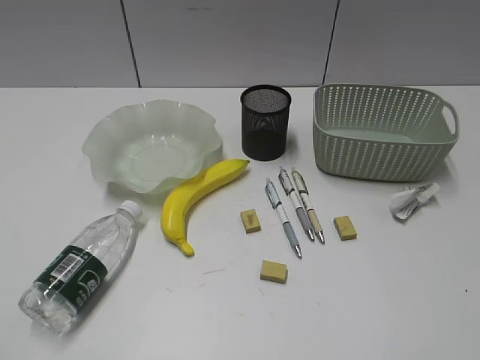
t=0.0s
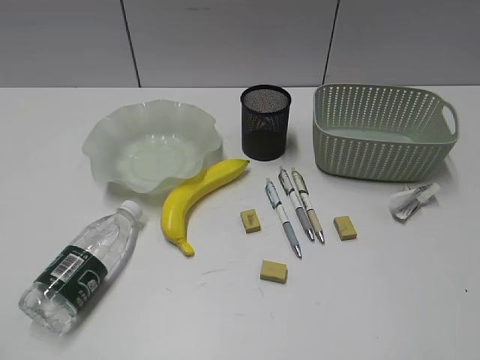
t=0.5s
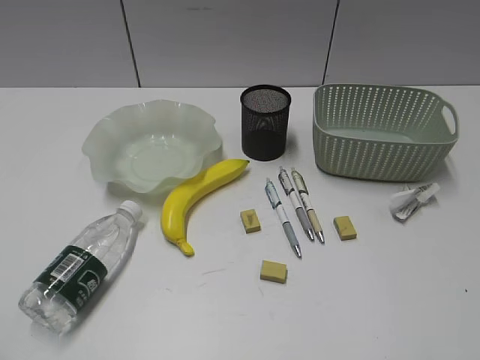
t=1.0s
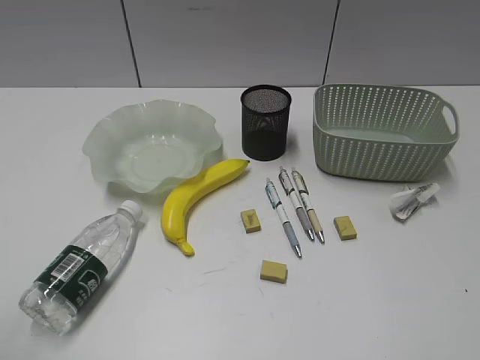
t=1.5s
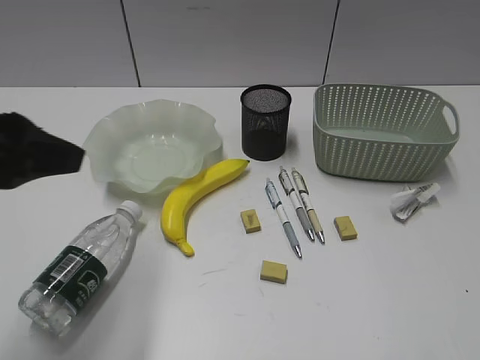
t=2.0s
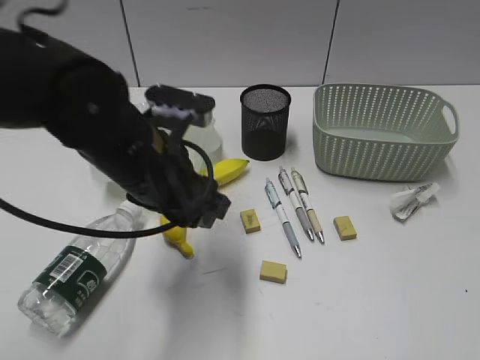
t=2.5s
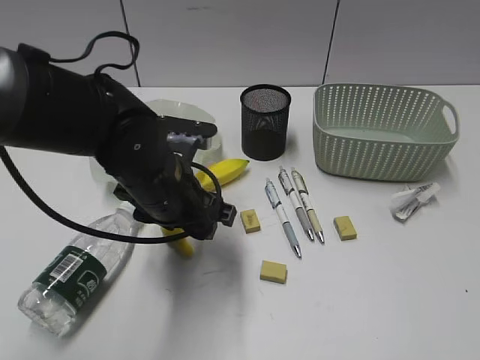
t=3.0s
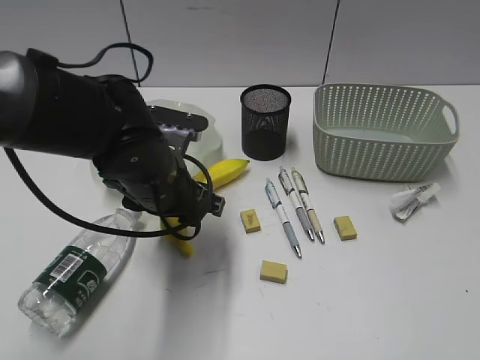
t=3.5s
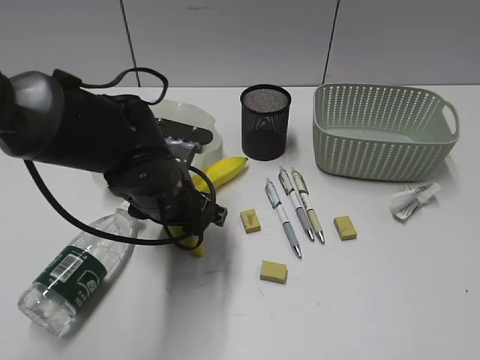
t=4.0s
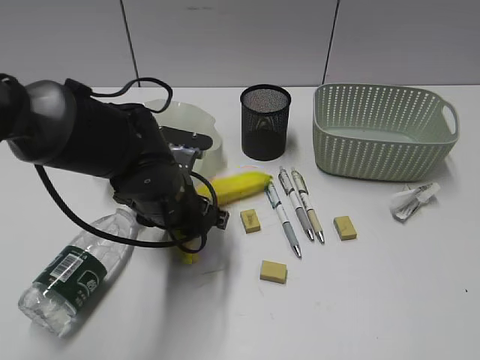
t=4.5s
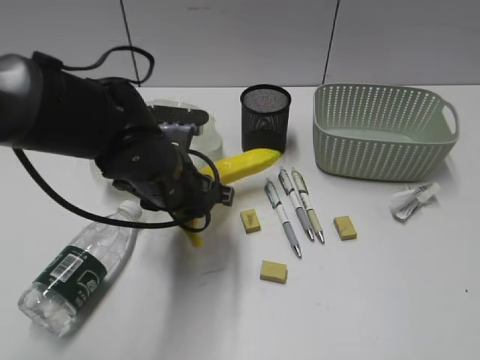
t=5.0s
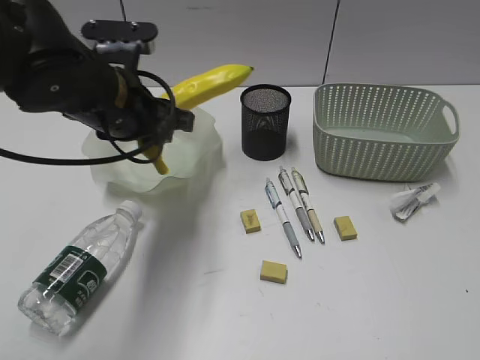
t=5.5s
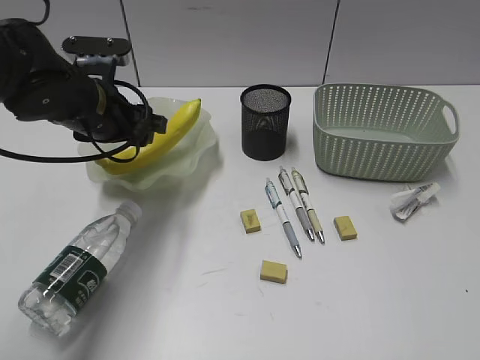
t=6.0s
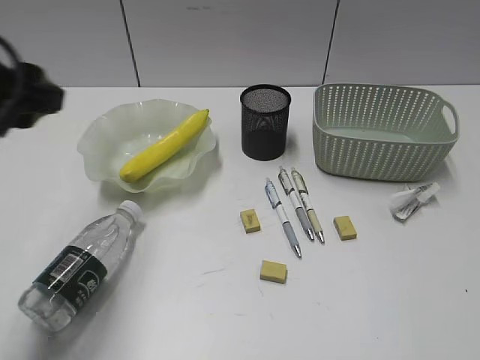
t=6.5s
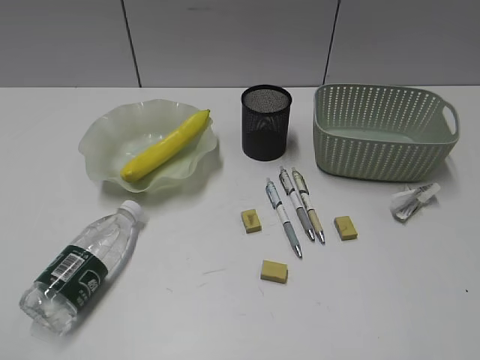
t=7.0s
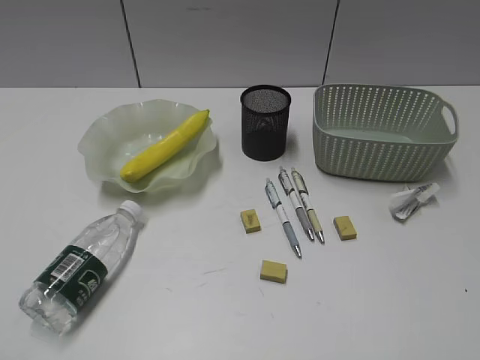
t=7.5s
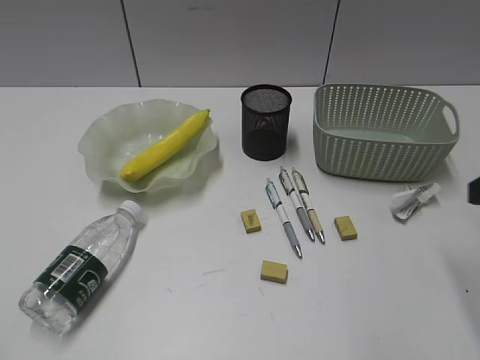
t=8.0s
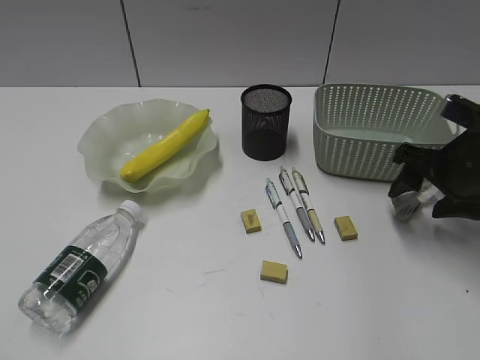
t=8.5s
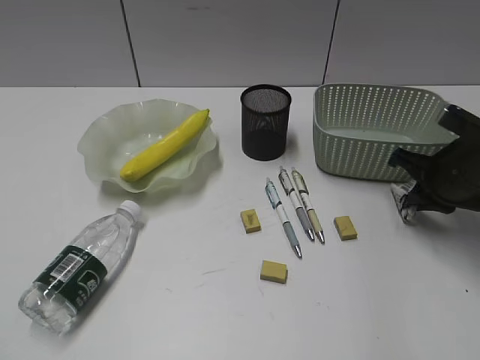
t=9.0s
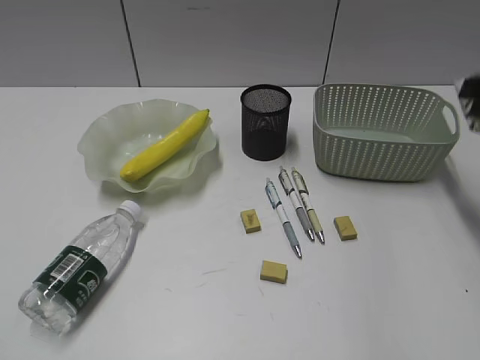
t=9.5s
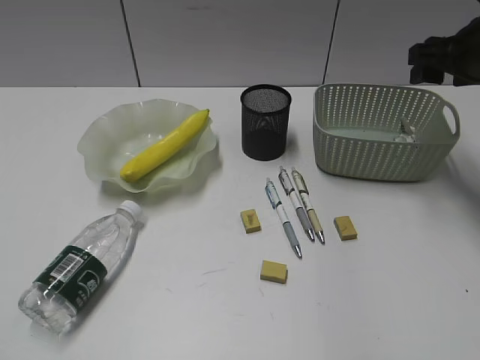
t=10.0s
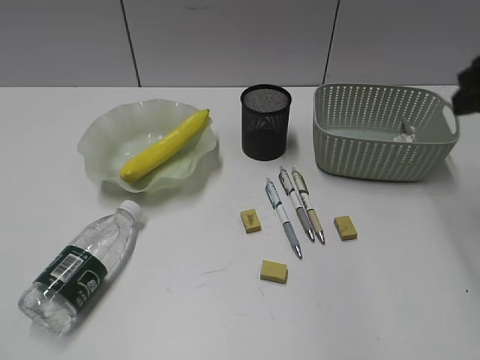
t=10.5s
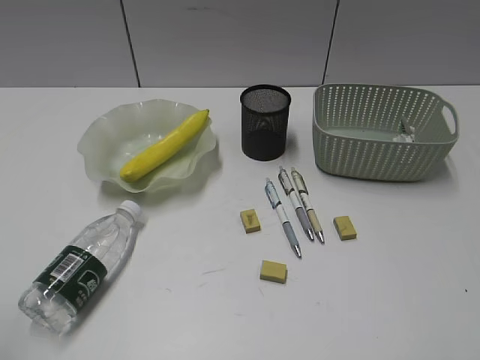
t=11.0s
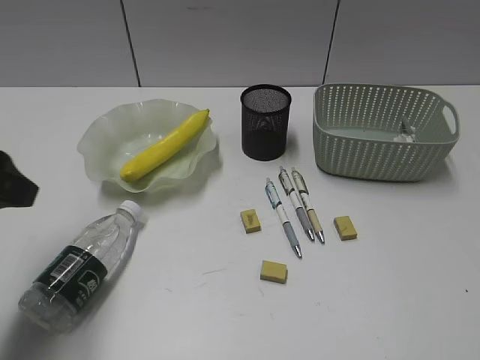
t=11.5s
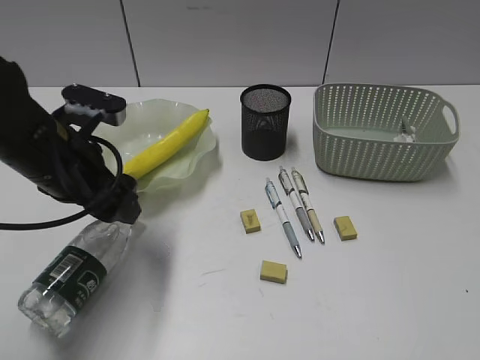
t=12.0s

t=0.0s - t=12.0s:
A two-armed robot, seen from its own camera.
Step, t=1.5s - t=4.5s: Grasp the banana with left gripper.
Step, t=5.0s - t=6.0s: Place the banana in the plate with left gripper.
Step, t=6.5s - t=9.0s: Grasp the waste paper with right gripper.
Step, t=9.5s - t=10.0s: Place the waste paper in the basket with right gripper.
t=2.0s - t=4.0s: The left gripper goes roughly 25 cm downward, to the right and forward.
t=4.0s - t=6.0s: The left gripper travels to the left, upward and forward by approximately 10 cm.
t=6.0s - t=8.0s: The left gripper shifts approximately 40 cm backward and to the left. Meanwhile the right gripper travels forward by approximately 20 cm, and opens its fingers.
t=8.0s - t=10.0s: The right gripper swings forward and backward, roughly 20 cm each way, with 2 reversals, and closes and opens again.
t=10.0s - t=12.0s: The left gripper heads forward and to the right, covering roughly 35 cm, and opens its fingers. The right gripper shifts about 40 cm backward.

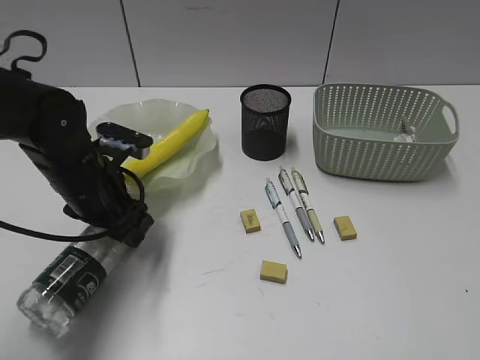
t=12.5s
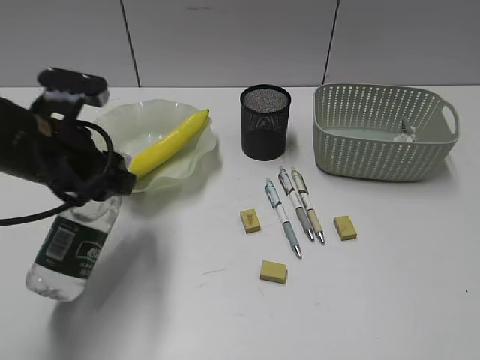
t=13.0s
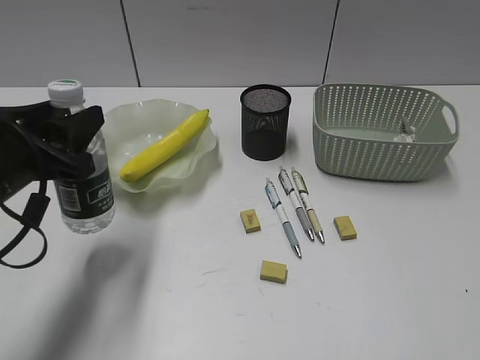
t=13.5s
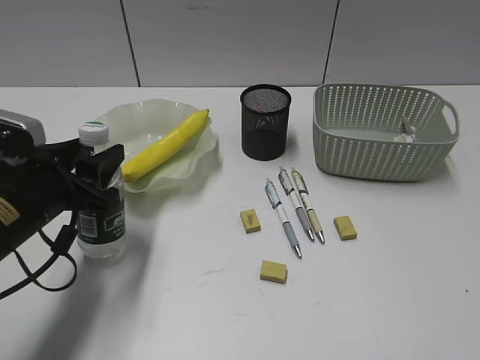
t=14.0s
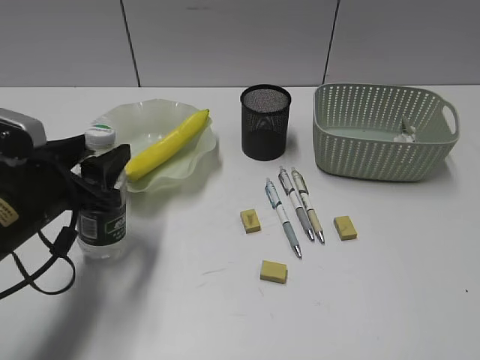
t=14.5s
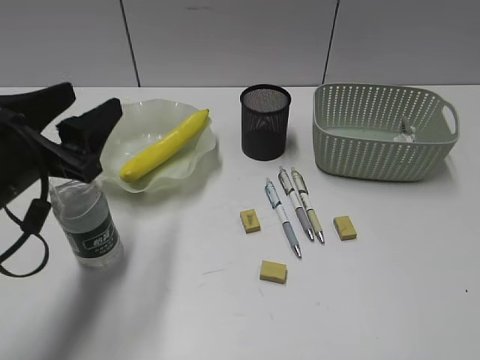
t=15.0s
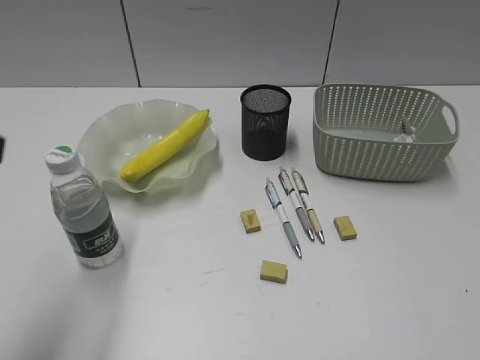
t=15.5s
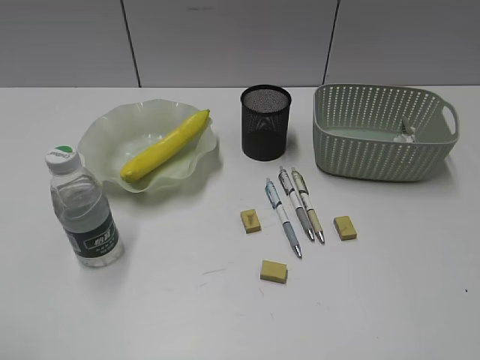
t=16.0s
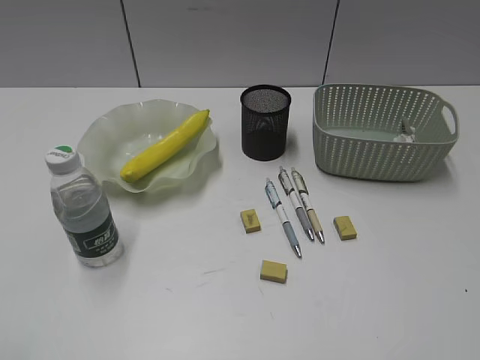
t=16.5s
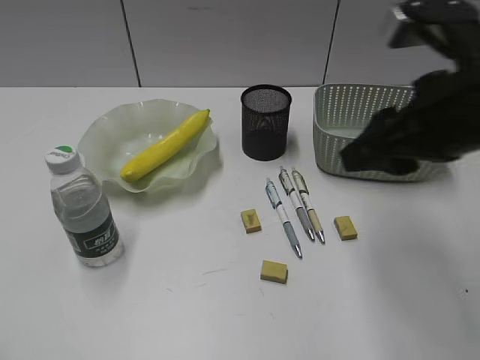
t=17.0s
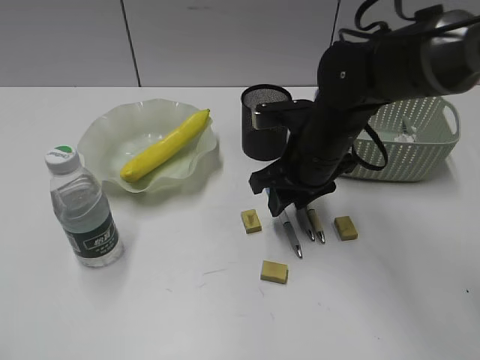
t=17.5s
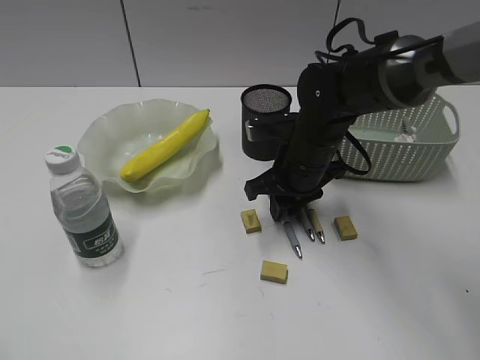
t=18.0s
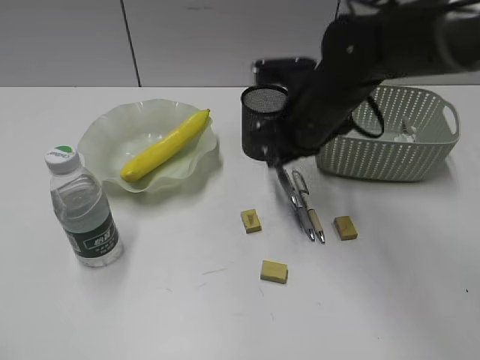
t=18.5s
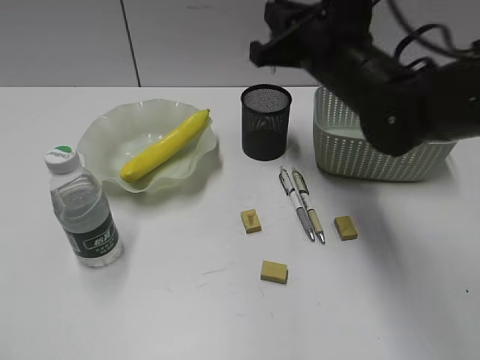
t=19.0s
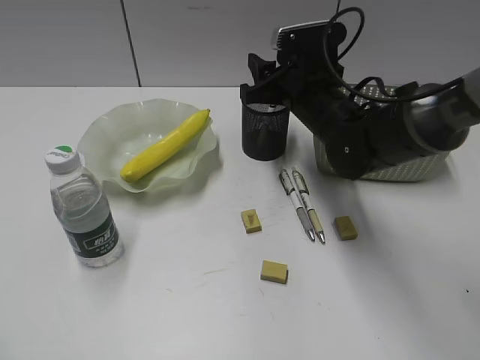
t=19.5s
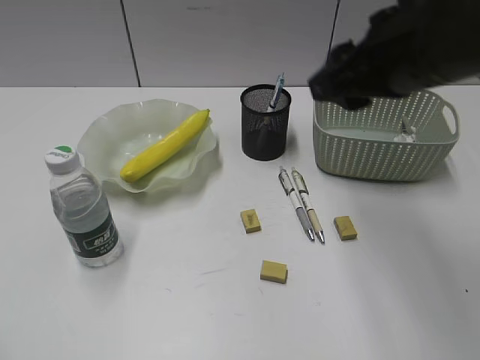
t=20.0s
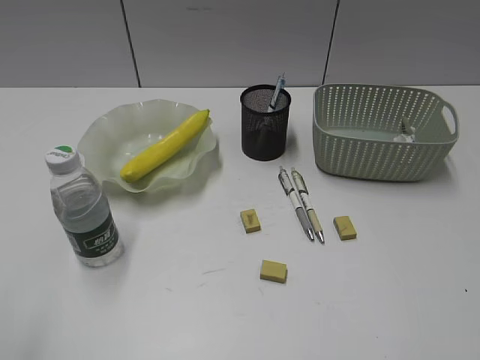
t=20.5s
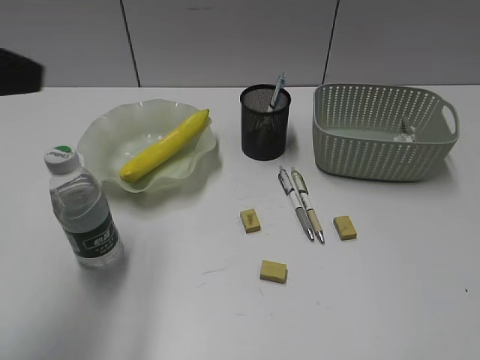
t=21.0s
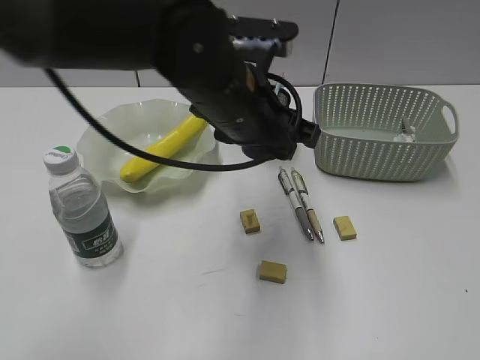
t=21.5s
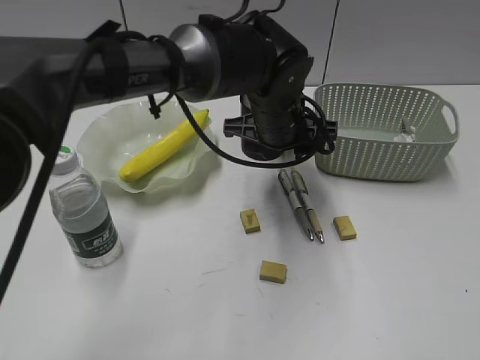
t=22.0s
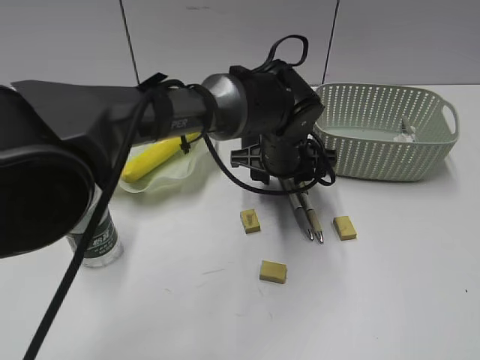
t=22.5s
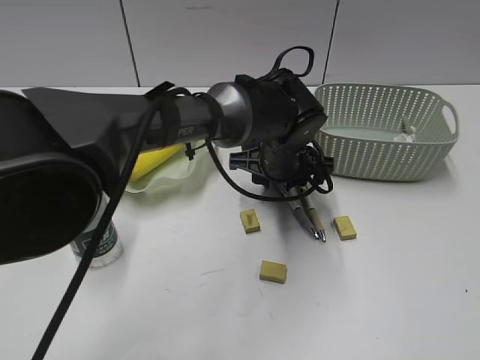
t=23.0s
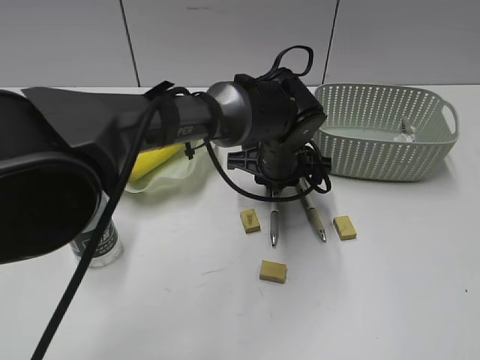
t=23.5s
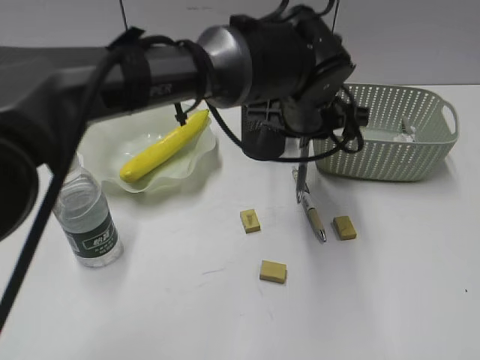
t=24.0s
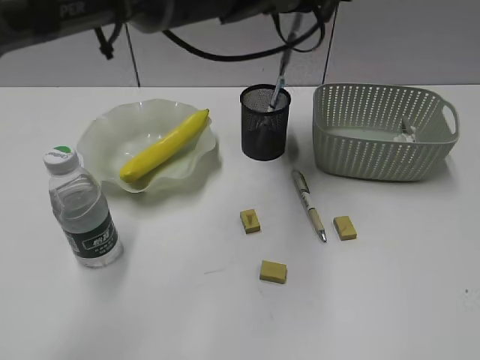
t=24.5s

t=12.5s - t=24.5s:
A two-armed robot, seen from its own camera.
Step, t=13.0s - t=14.5s: Stand the bottle with left gripper.
Step, t=15.0s - t=18.0s: Grasp the blue pen with right gripper.
Step, t=18.5s - t=19.5s: Place the blue pen in pen holder with right gripper.
Step, t=20.0s - t=23.5s: Grasp the gray pen with left gripper.
t=12.5s - t=14.5s: The left gripper is displaced backward by about 5 cm.
t=14.5s - t=16.5s: The left gripper heads backward, upward and to the left, covering some 30 cm.
t=16.5s - t=18.5s: The right gripper is displaced forward and to the left by approximately 35 cm, and closes its fingers.
t=18.5s - t=20.5s: The left gripper changes place by some 5 cm. The right gripper is displaced backward and to the right by roughly 35 cm, and opens.
t=20.5s - t=22.5s: The right gripper changes place by roughly 5 cm. The left gripper shifts approximately 50 cm to the right, forward and downward.
t=22.5s - t=24.5s: The left gripper goes some 20 cm upward, and closes.

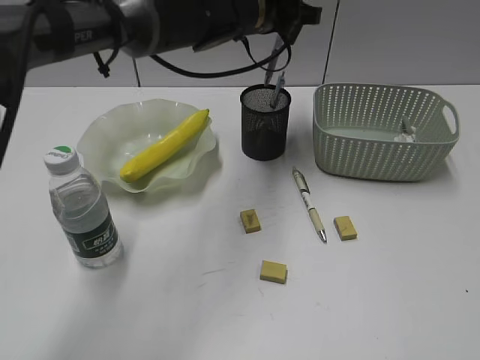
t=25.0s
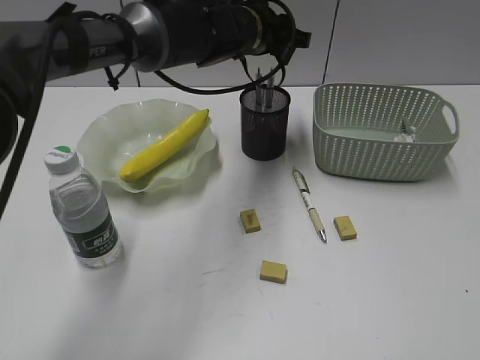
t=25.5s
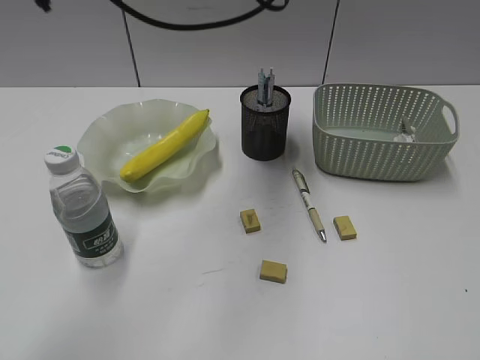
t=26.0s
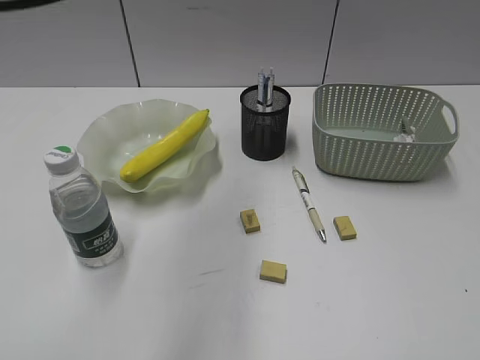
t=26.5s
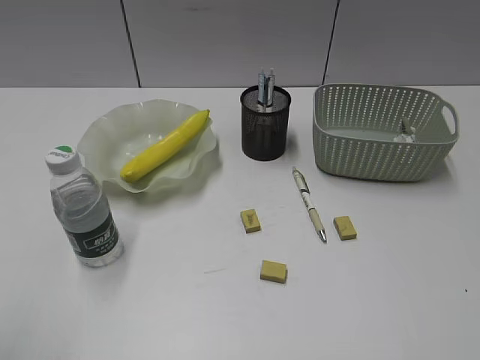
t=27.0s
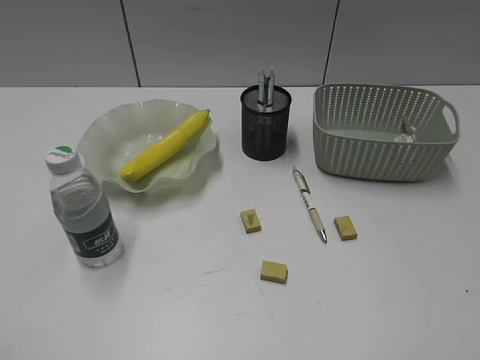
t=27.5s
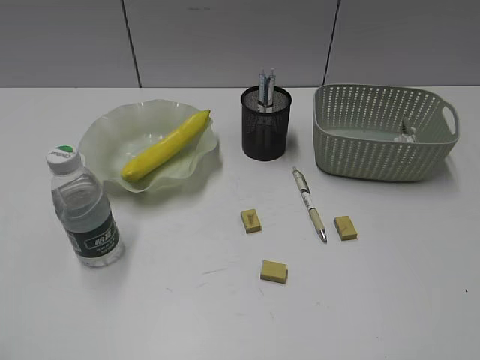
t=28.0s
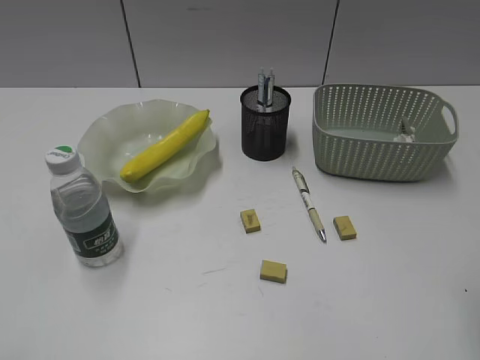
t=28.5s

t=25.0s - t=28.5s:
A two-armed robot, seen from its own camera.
t=25.0s - t=27.0s: The left gripper shifts approximately 50 cm backward and to the left, and opens its fingers.
